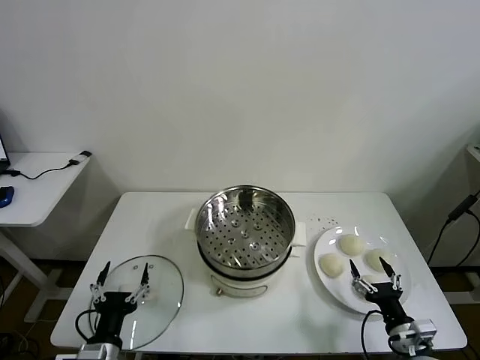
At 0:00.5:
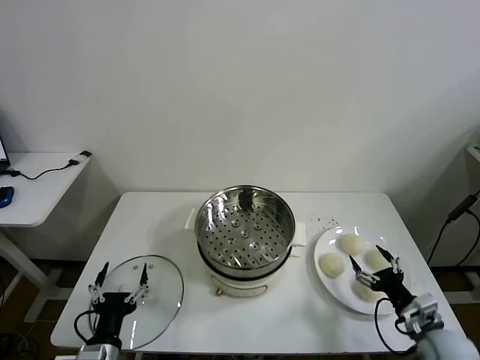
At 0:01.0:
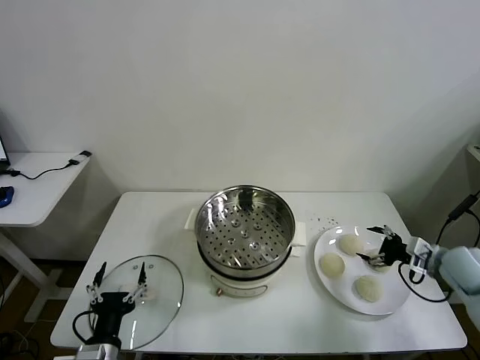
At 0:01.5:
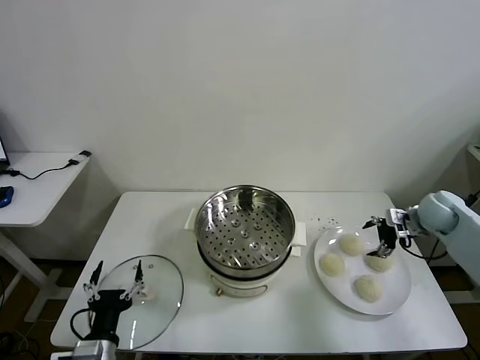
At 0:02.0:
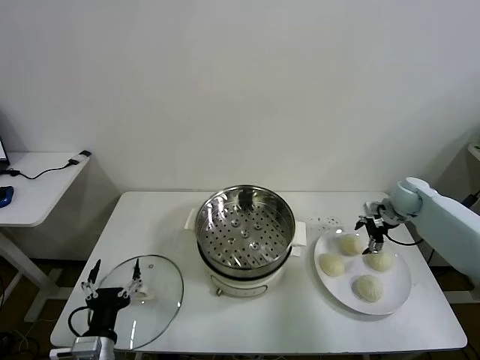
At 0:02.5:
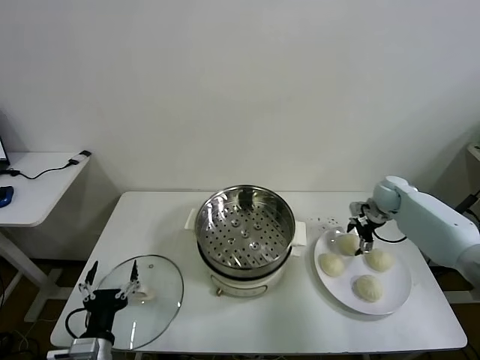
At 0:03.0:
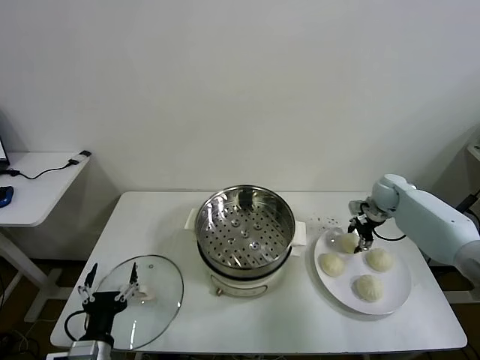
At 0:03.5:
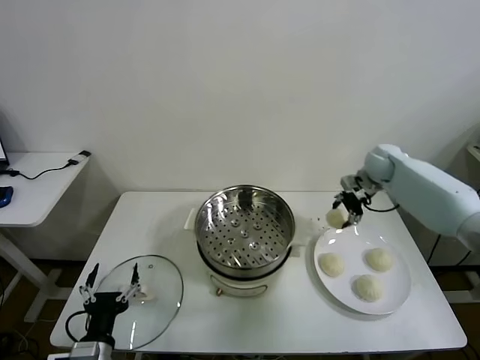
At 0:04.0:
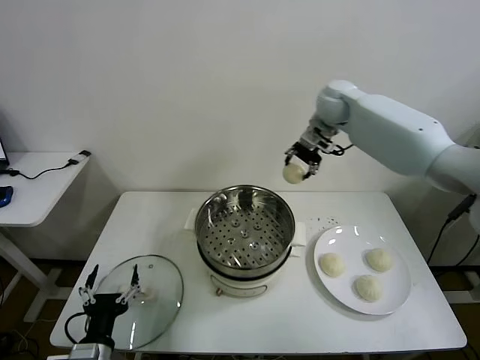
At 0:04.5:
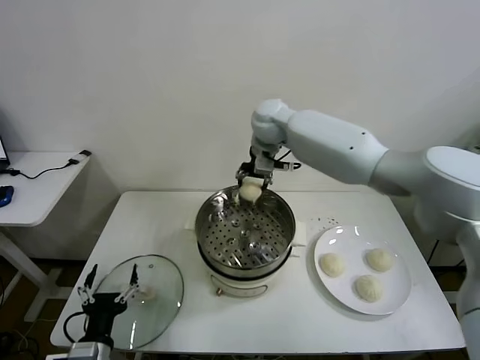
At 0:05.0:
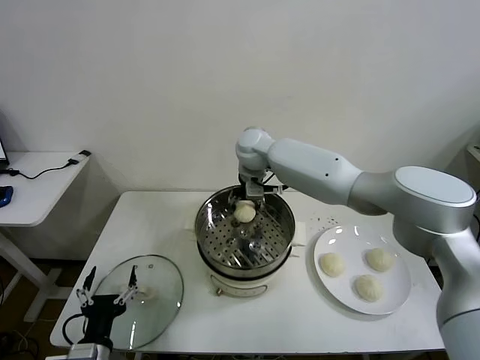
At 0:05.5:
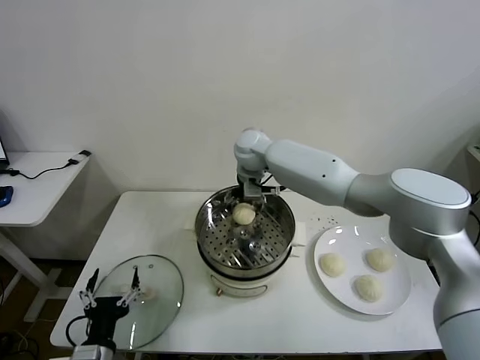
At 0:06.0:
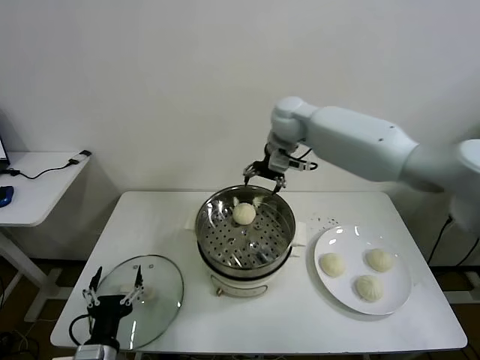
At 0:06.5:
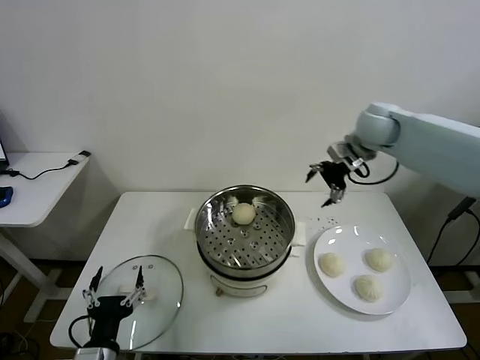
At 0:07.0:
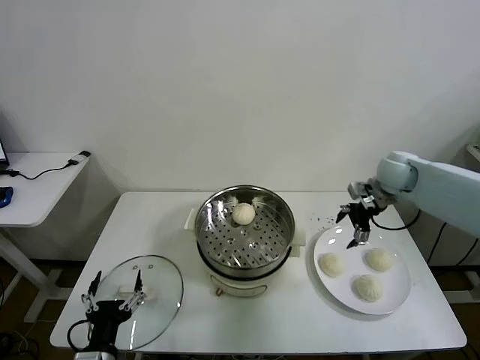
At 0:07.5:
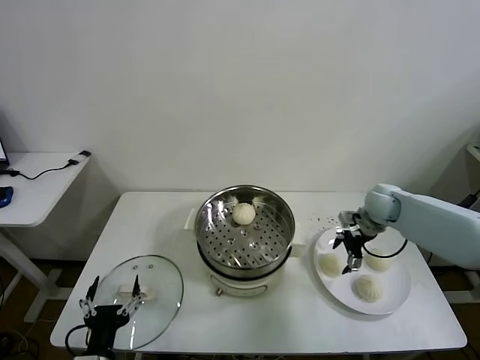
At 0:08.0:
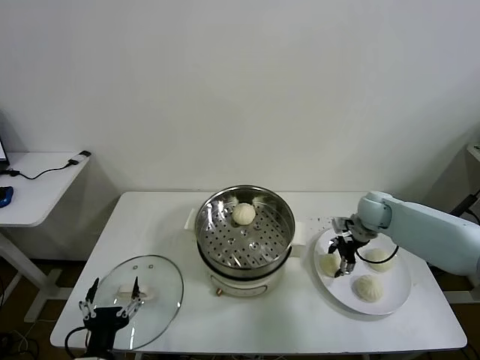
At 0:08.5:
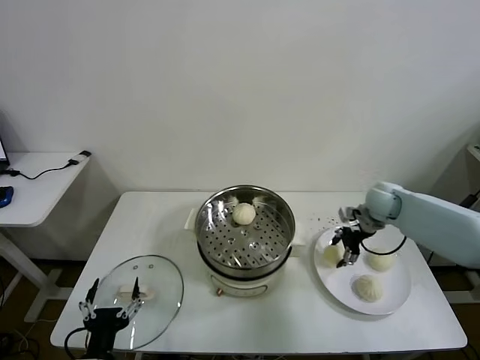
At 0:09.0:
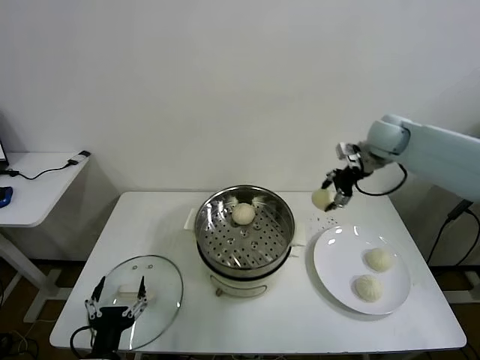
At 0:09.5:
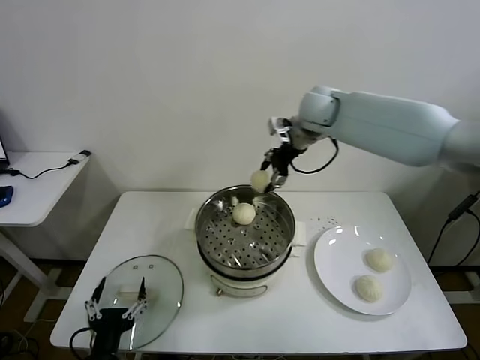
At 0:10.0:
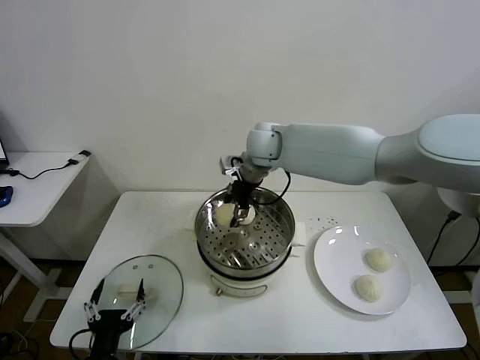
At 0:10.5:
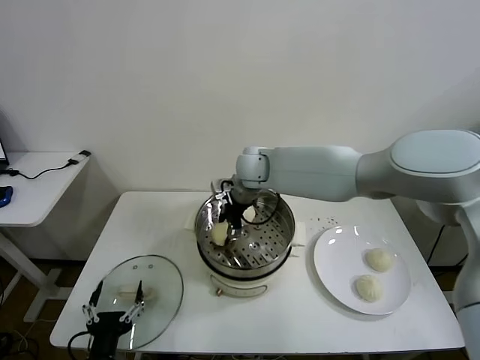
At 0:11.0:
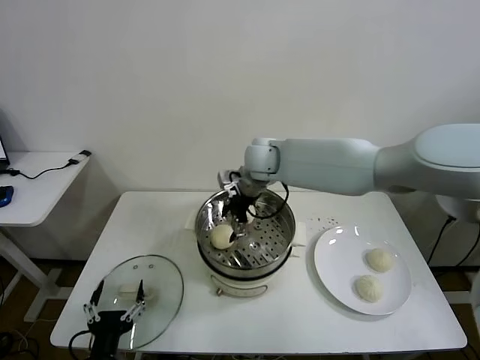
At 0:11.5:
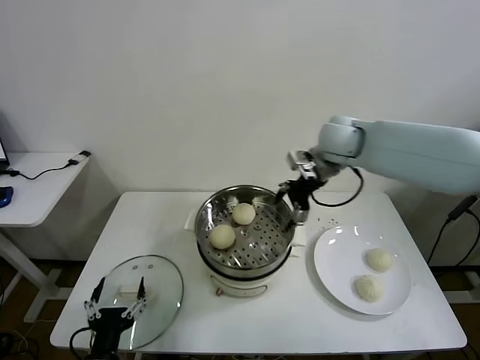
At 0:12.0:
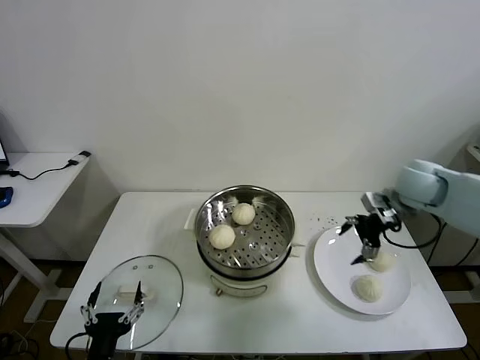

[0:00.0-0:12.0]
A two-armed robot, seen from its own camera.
Task of the whole recording: take steamed baozi put them in steamer then cover it.
Step, 0:00.0 to 0:03.0: Grasp the baozi in the plate with right gripper.
Step, 0:03.5 to 0:05.5: Place the baozi on the steamer with right gripper.
Step, 0:06.0 to 0:08.0: Grasp the baozi in the plate with right gripper.
Step, 0:08.5 to 0:11.0: Place the baozi on the steamer with right gripper.
0:02.0 to 0:04.0: The right gripper travels to the left and upward by roughly 35 cm, and closes.
0:04.0 to 0:06.0: The right gripper moves approximately 15 cm to the left and comes back, and opens its fingers.
0:06.0 to 0:08.0: The right gripper travels downward and to the right by about 30 cm, and closes its fingers.
0:08.0 to 0:10.0: The right gripper is displaced to the left and upward by roughly 35 cm.
0:10.0 to 0:12.0: The right gripper goes roughly 35 cm to the right, and opens up.

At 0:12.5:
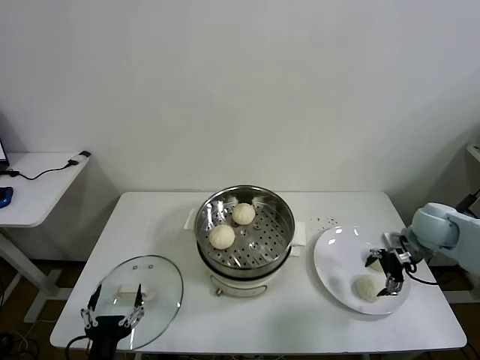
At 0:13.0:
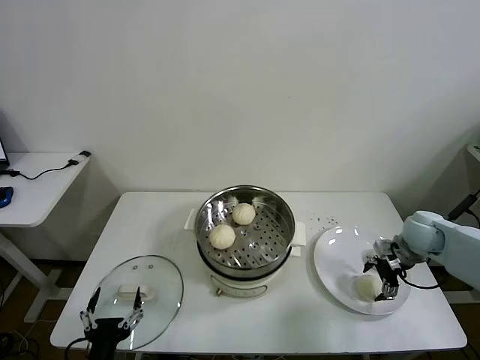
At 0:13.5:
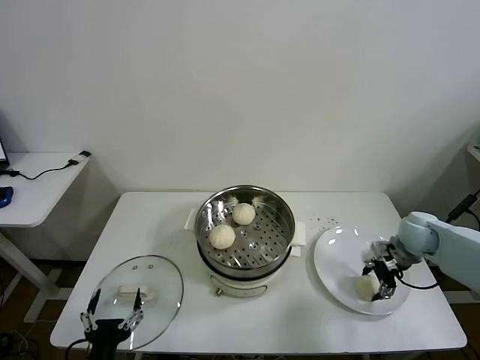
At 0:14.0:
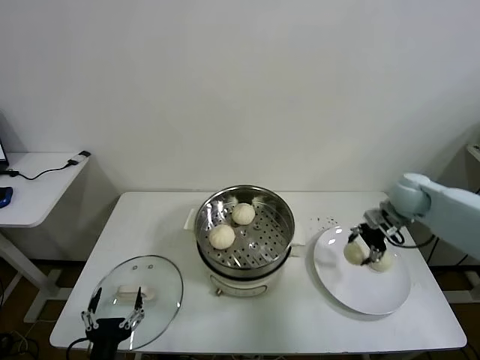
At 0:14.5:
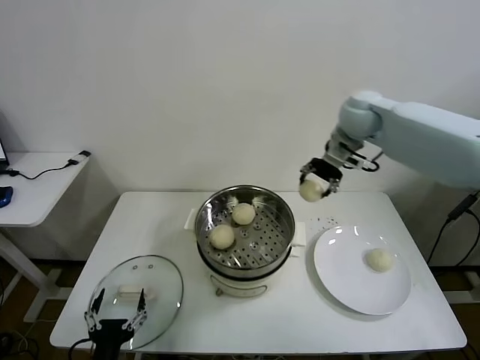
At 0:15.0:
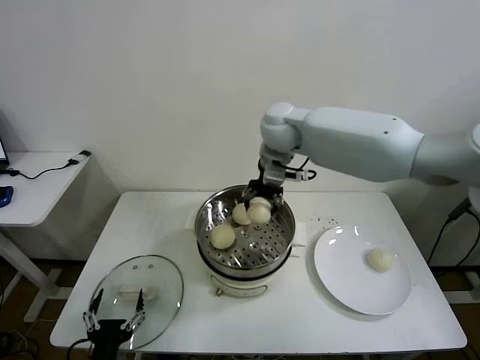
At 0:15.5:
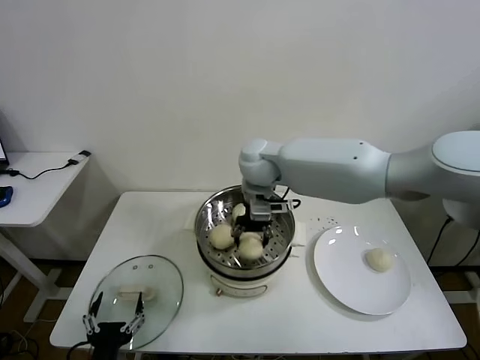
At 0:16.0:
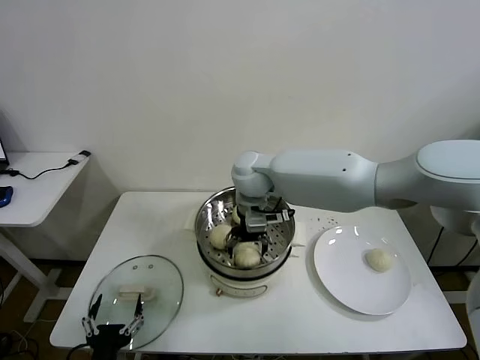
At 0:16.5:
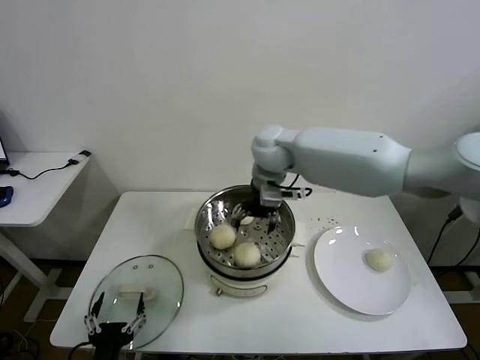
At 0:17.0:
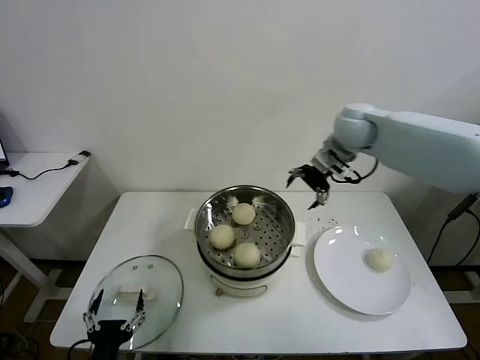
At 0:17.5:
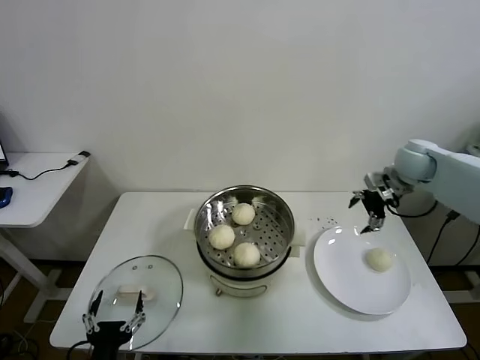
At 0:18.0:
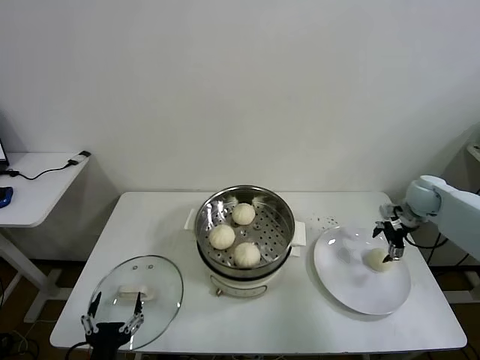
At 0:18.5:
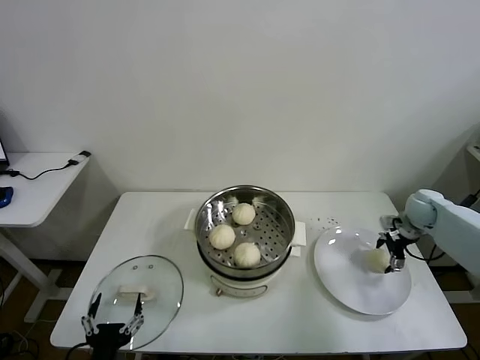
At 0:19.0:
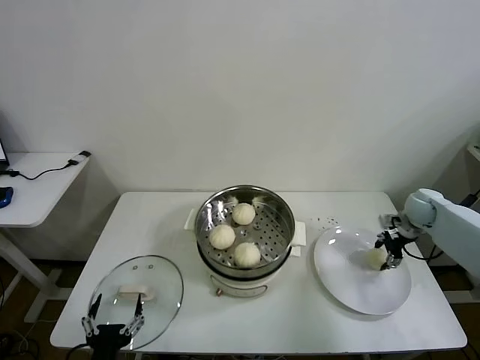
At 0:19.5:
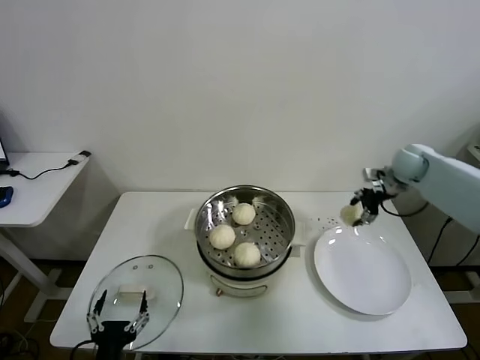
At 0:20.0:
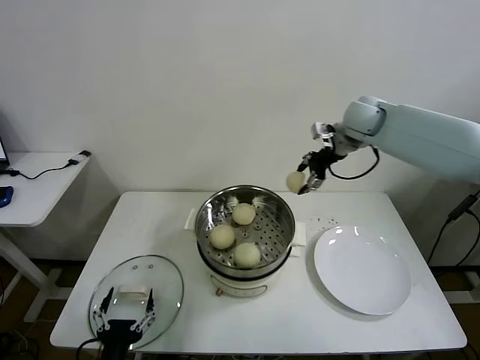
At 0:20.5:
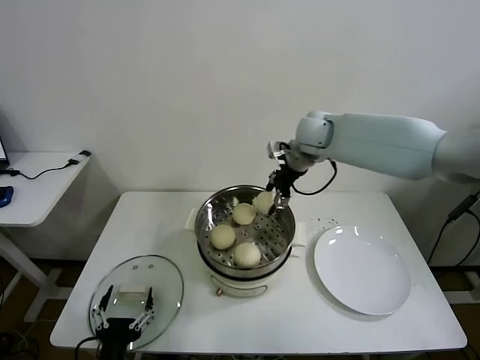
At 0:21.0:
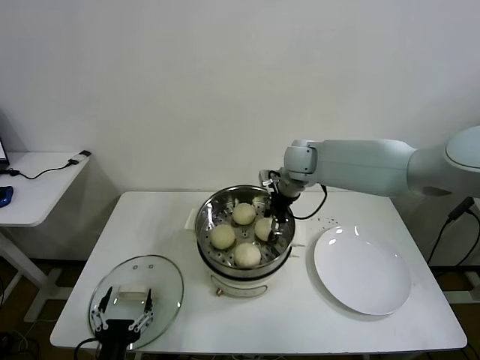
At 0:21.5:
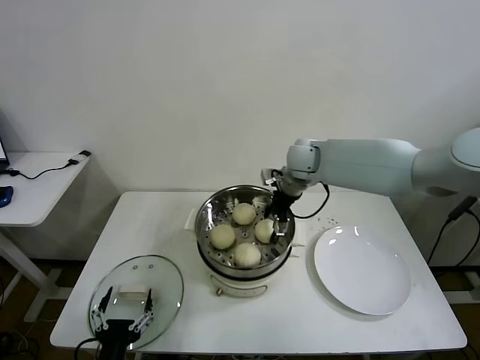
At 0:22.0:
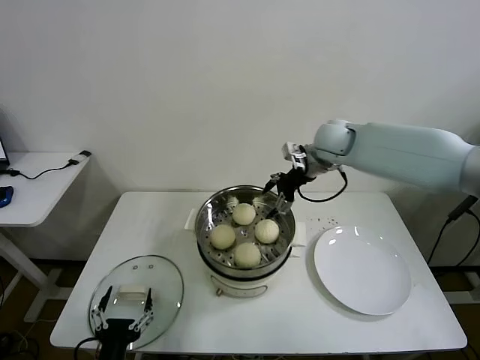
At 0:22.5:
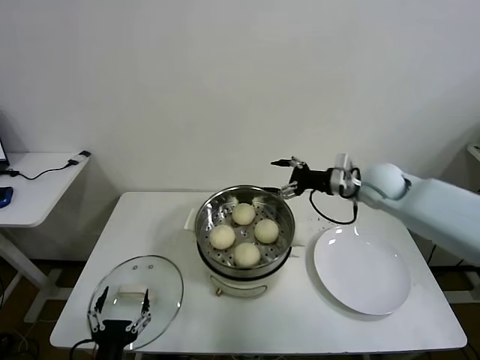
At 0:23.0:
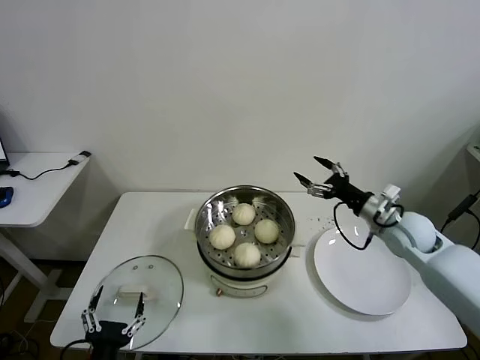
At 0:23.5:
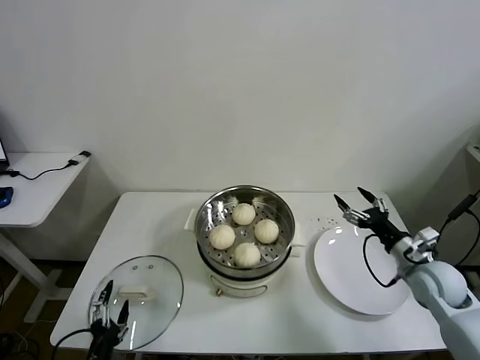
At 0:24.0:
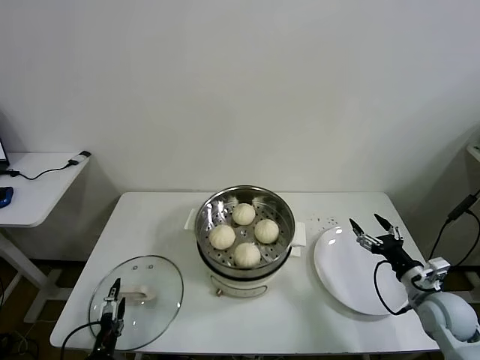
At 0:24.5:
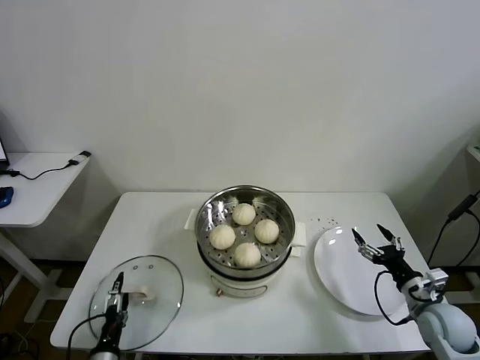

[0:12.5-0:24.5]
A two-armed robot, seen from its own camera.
Task of the whole recording: take steamed baozi put them in steamer then cover it.
Step, 0:12.5 to 0:13.5: Grasp the baozi in the plate with right gripper.
Step, 0:14.0 to 0:16.0: Place the baozi on the steamer with right gripper.
Step, 0:16.5 to 0:19.0: Grasp the baozi in the plate with right gripper.
Step, 0:19.5 to 0:21.5: Place the baozi on the steamer with right gripper.
0:12.5 to 0:14.5: The right gripper moves upward, to the left and forward, about 35 cm, and closes up.
0:14.5 to 0:16.5: The right gripper is displaced to the left by some 15 cm, and opens.
0:16.5 to 0:18.5: The right gripper moves to the right and downward, approximately 40 cm.
0:18.5 to 0:20.5: The right gripper heads to the left and upward, covering about 35 cm, and closes up.
0:20.5 to 0:22.5: The right gripper heads to the right, backward and downward, covering some 20 cm, and opens.
0:22.5 to 0:24.5: The right gripper is displaced backward, downward and to the right by about 30 cm. Meanwhile the left gripper heads downward, to the left and forward, covering some 15 cm.

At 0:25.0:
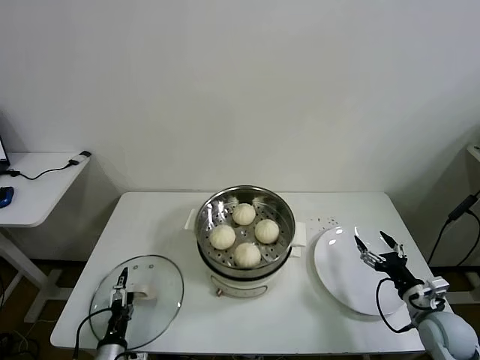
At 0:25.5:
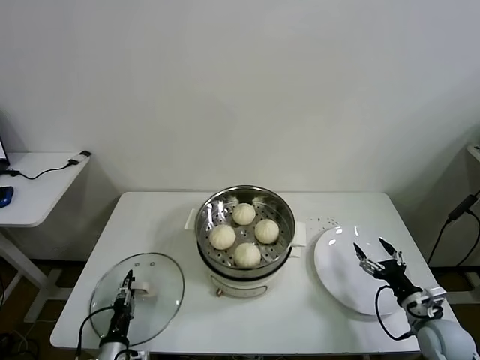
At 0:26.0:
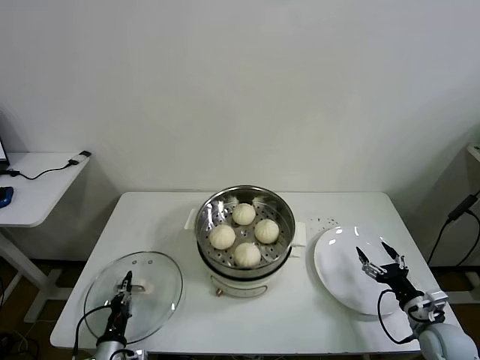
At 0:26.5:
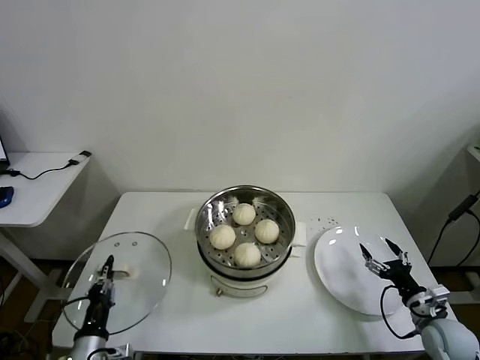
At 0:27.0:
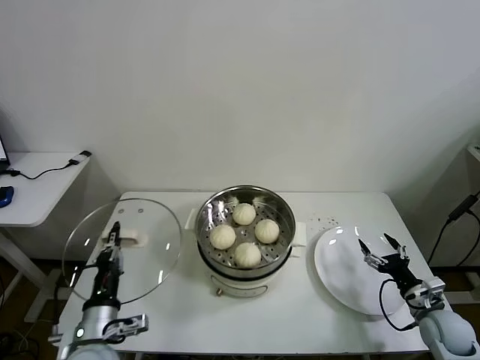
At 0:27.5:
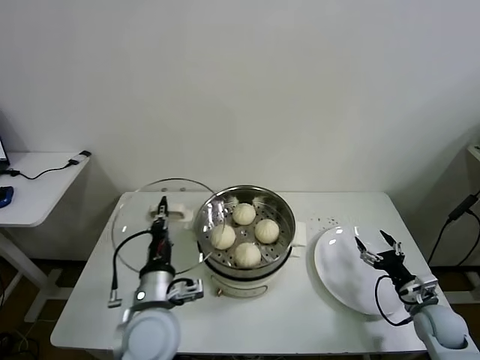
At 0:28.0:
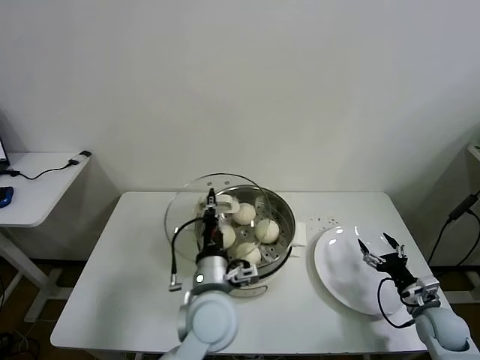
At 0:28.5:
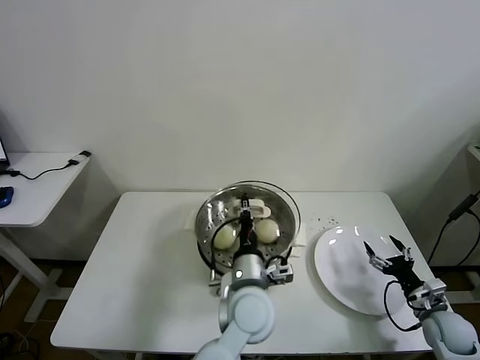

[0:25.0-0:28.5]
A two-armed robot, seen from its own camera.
Task of the whole recording: take steamed baozi put them in steamer then cover it.
0:25.0 to 0:27.0: The left gripper is displaced upward by some 15 cm, and closes.
0:27.0 to 0:28.5: The left gripper travels to the right by about 30 cm.
